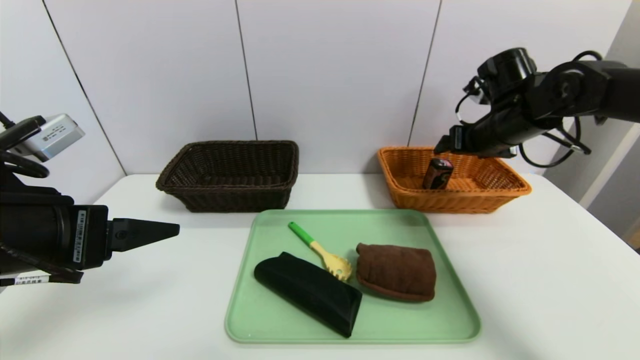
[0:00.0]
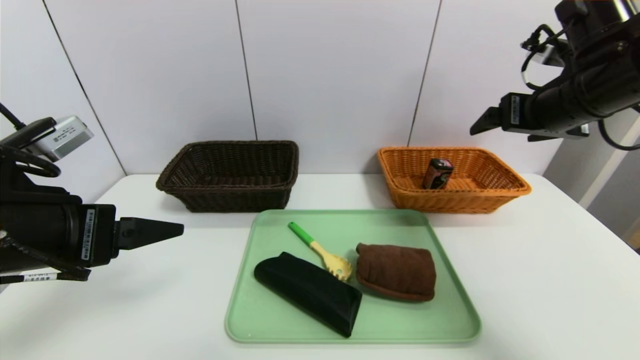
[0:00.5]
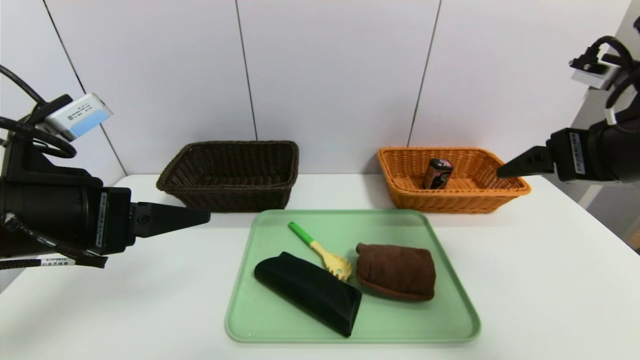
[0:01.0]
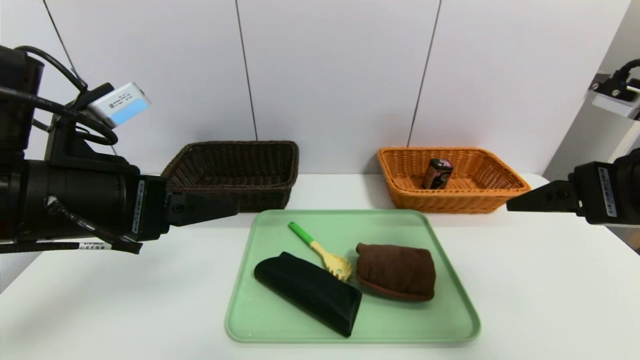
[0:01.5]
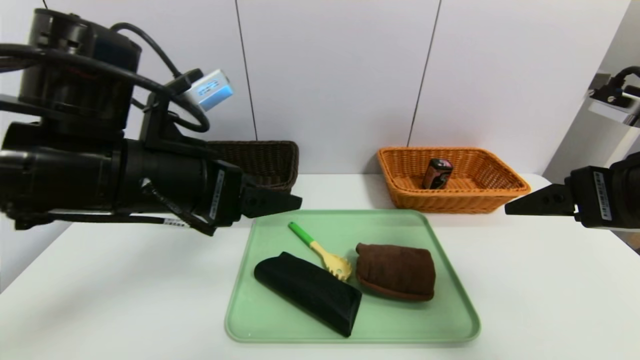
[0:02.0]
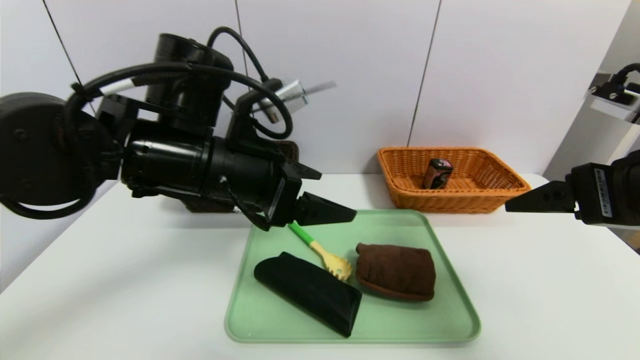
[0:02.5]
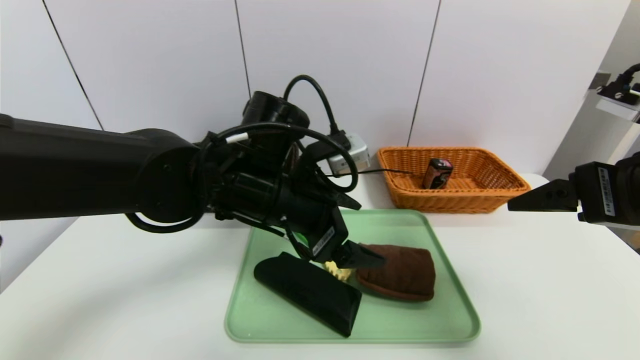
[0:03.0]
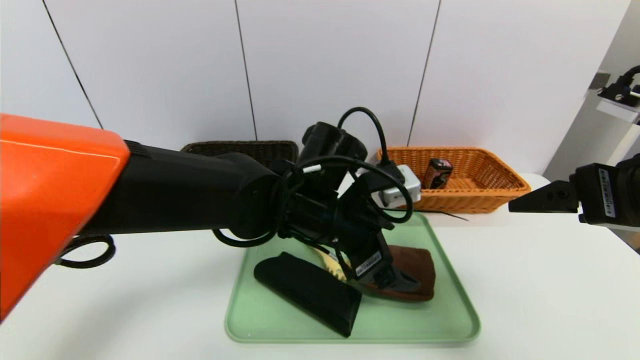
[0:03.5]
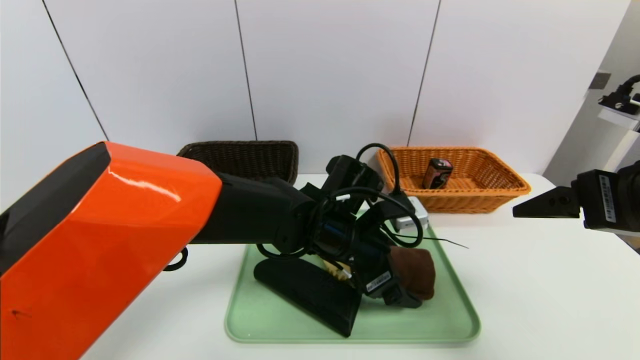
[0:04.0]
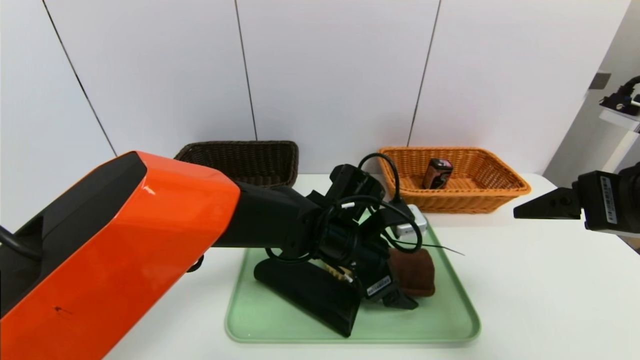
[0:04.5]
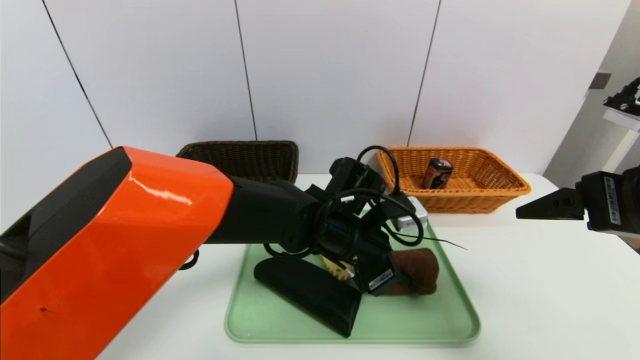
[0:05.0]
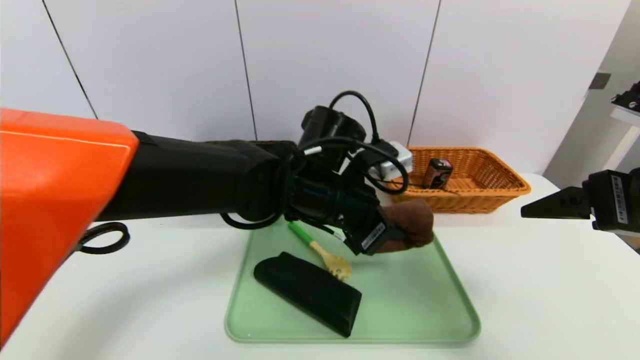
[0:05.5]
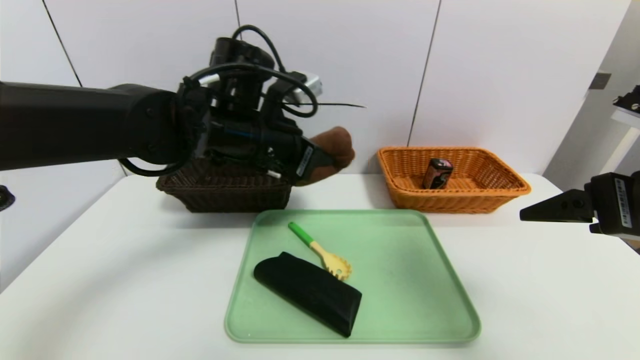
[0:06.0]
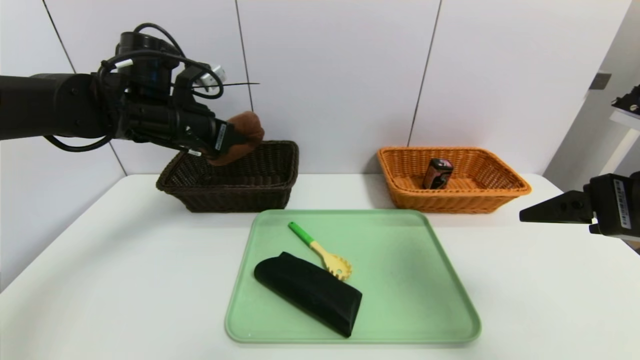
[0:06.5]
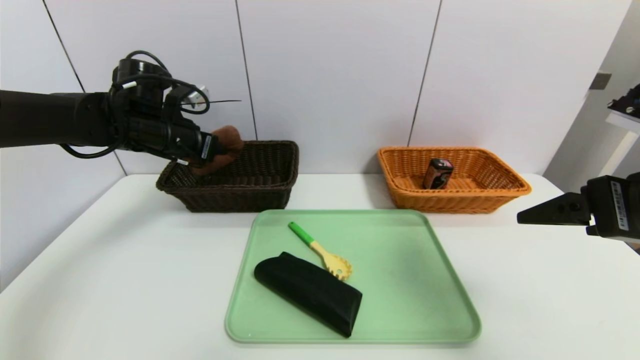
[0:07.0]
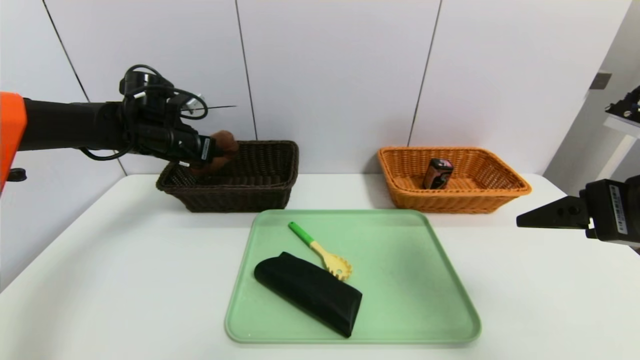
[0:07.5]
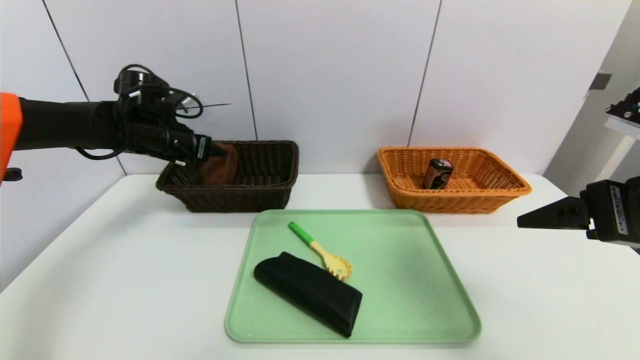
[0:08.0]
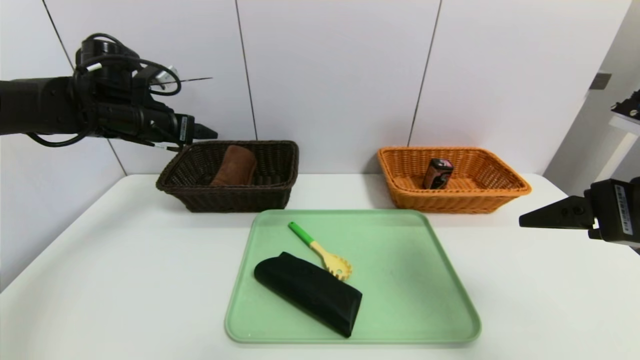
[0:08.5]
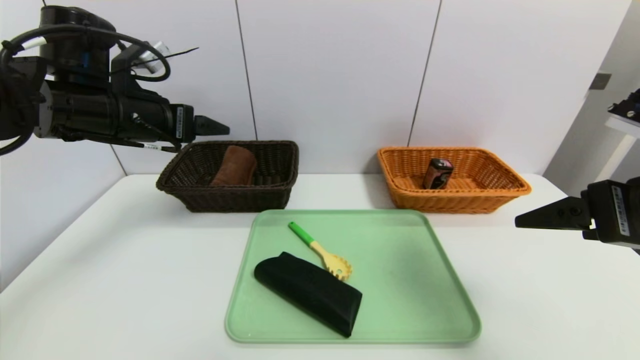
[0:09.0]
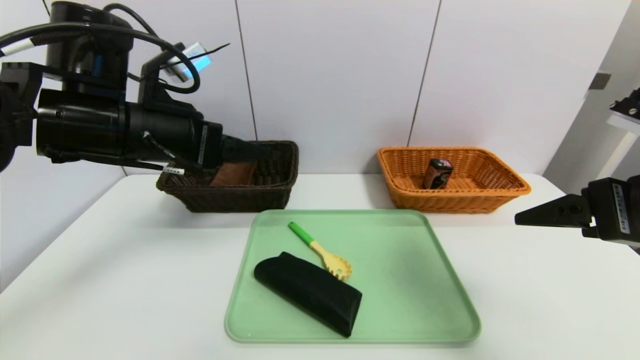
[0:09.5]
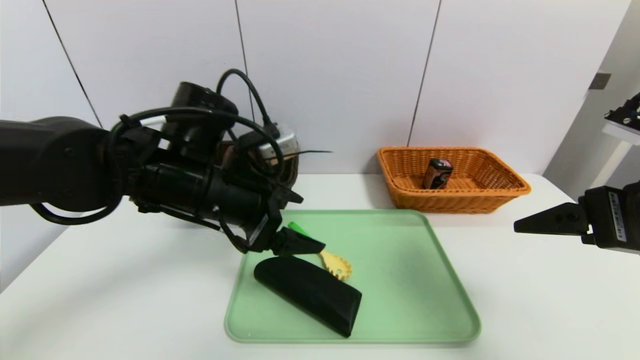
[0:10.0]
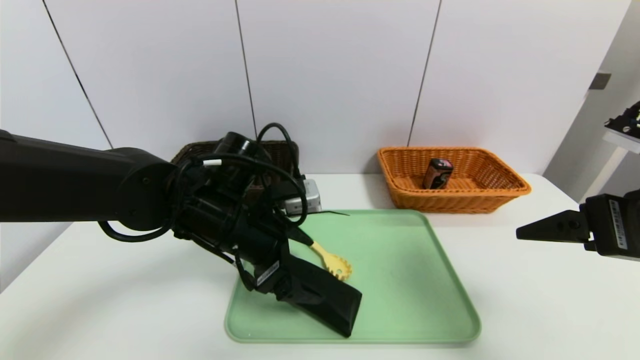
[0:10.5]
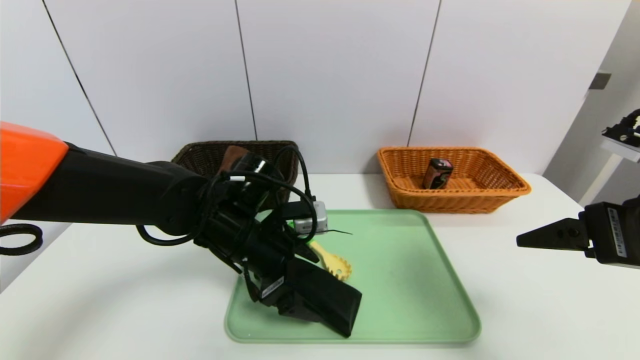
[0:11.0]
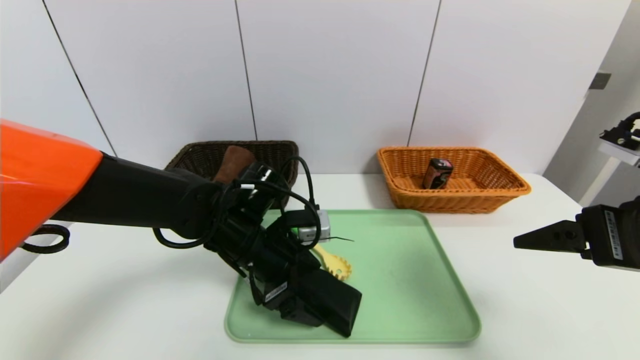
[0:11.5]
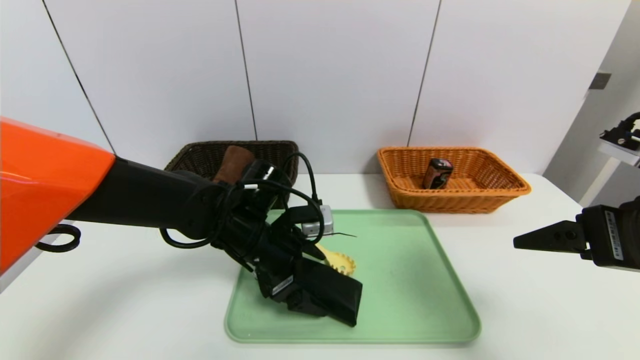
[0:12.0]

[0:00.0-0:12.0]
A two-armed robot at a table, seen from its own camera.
Task of the whole recording: place the food in the right basket with the right gripper, and place the non food items in the left basket with the left gripper.
Step, 0:00.0 to 0:08.0: Grasp the brown towel and put it in the left basket.
0:00.0 to 0:02.0: The right gripper is displaced backward by roughly 25 cm; the left gripper heads to the right and forward, covering some 10 cm.
0:02.0 to 0:04.0: The left gripper heads to the right, downward and forward, covering approximately 25 cm.
0:04.0 to 0:06.0: The left gripper heads upward and to the left, covering some 20 cm, and closes.
0:06.0 to 0:08.0: The left gripper moves to the left and forward, roughly 20 cm, and opens its fingers.
0:08.0 to 0:10.0: The left gripper shifts approximately 20 cm backward and to the right.
0:10.0 to 0:12.0: The left gripper moves downward, roughly 10 cm.

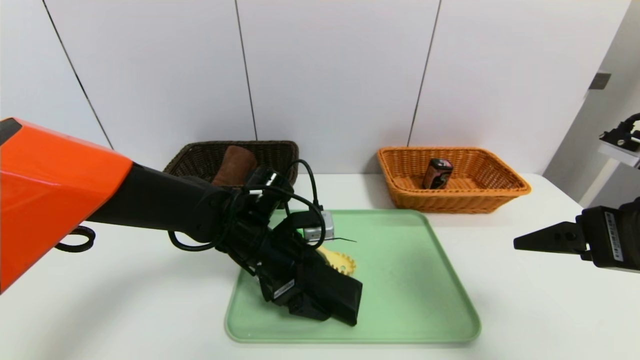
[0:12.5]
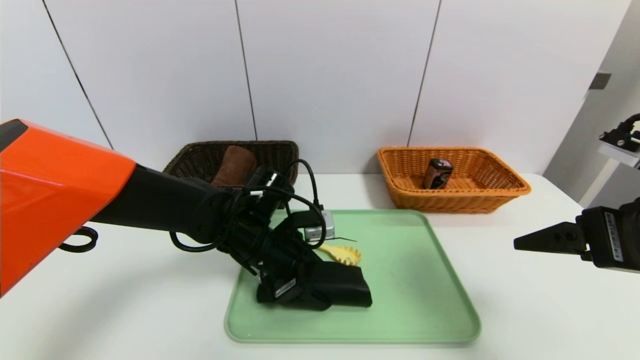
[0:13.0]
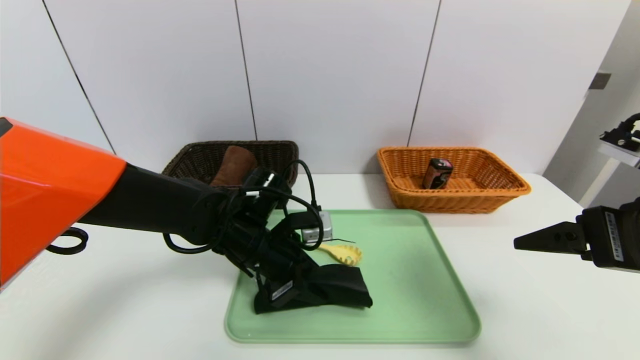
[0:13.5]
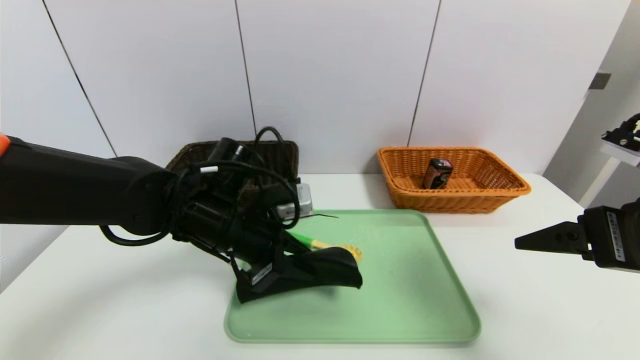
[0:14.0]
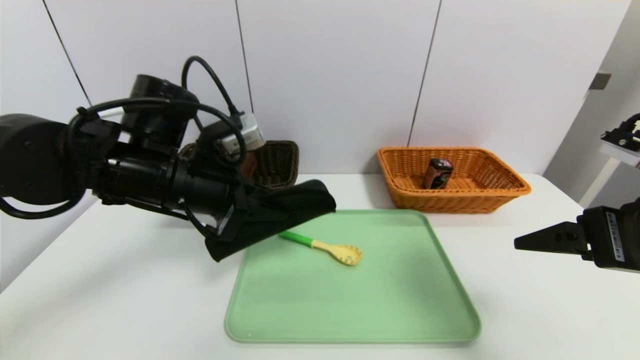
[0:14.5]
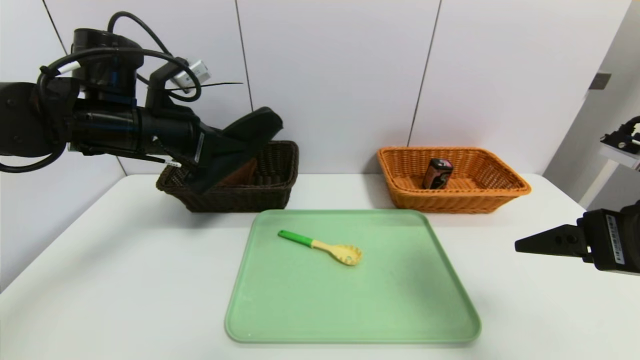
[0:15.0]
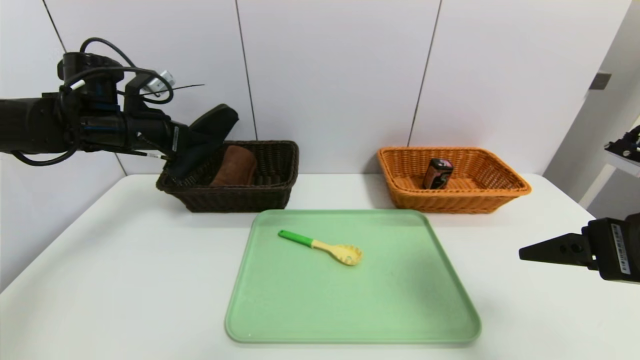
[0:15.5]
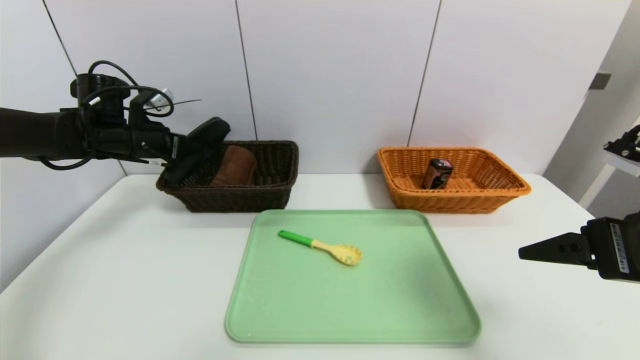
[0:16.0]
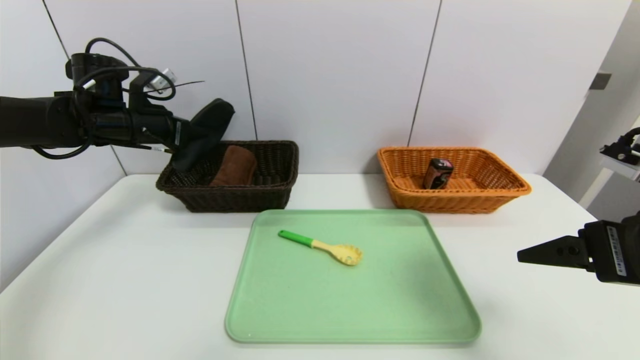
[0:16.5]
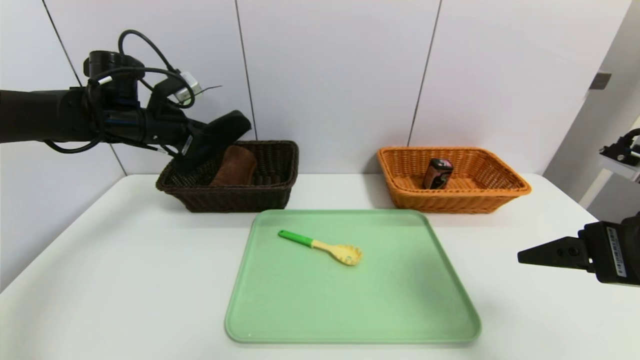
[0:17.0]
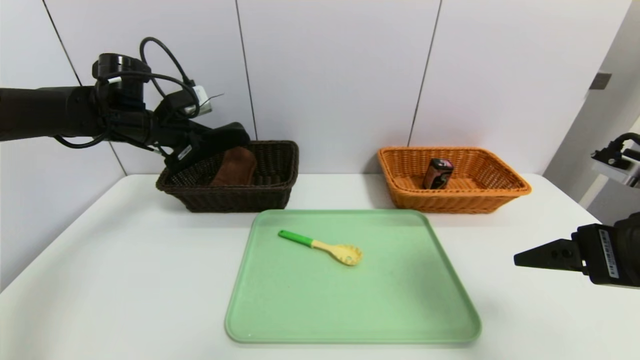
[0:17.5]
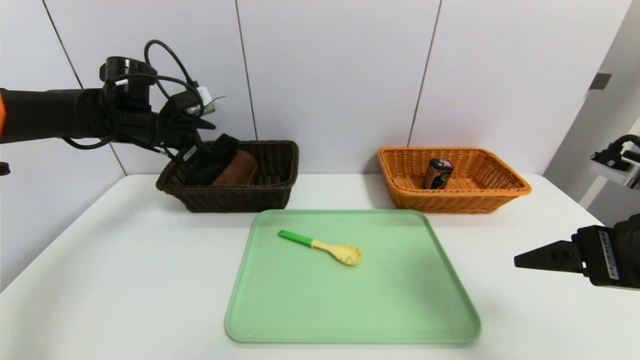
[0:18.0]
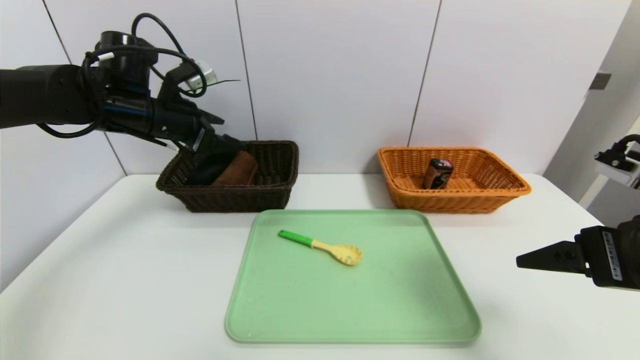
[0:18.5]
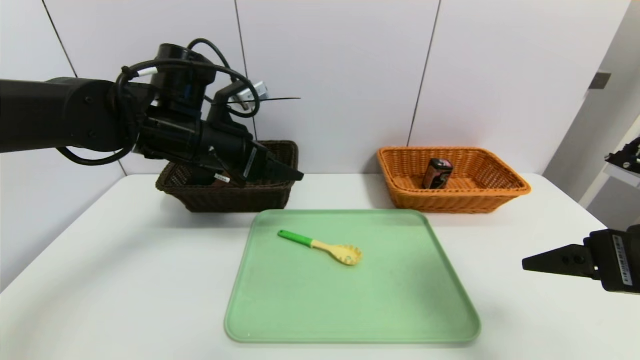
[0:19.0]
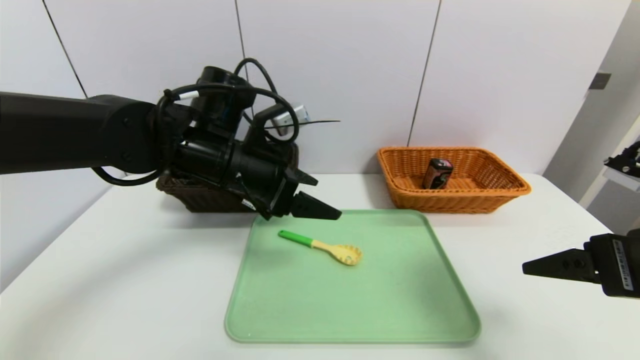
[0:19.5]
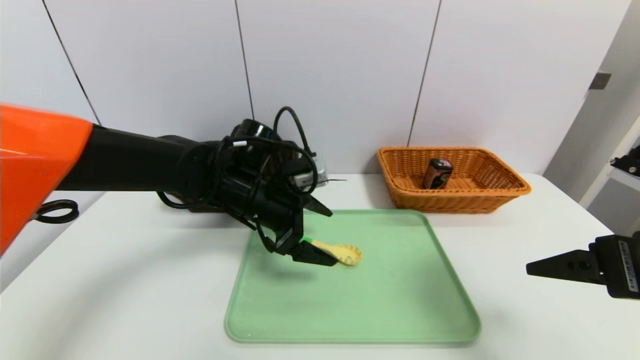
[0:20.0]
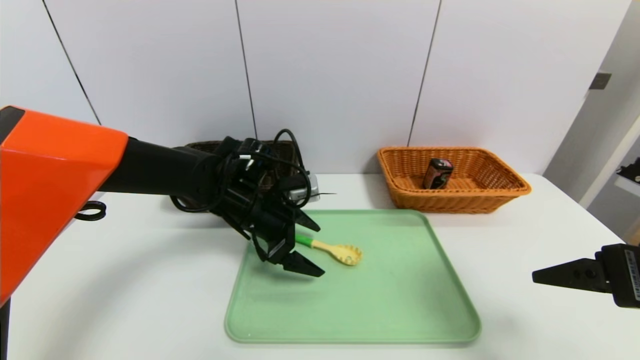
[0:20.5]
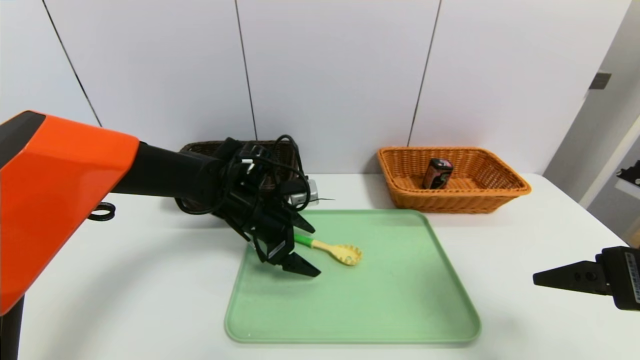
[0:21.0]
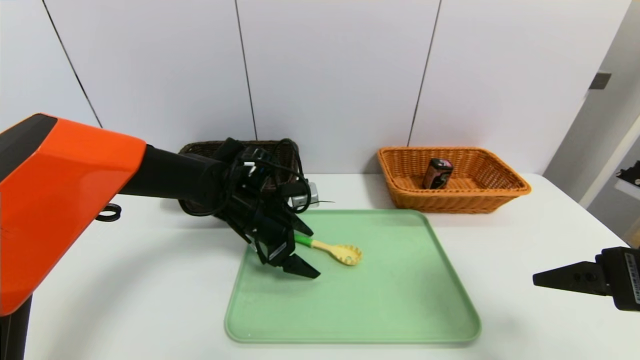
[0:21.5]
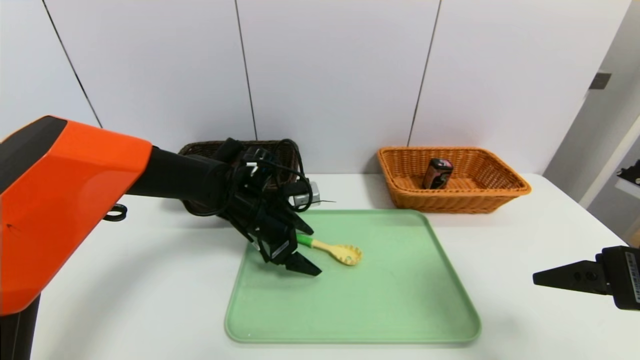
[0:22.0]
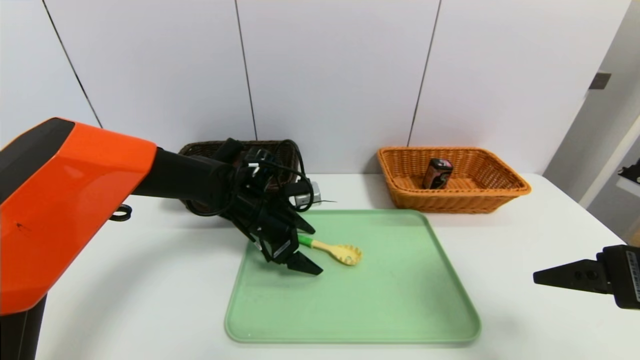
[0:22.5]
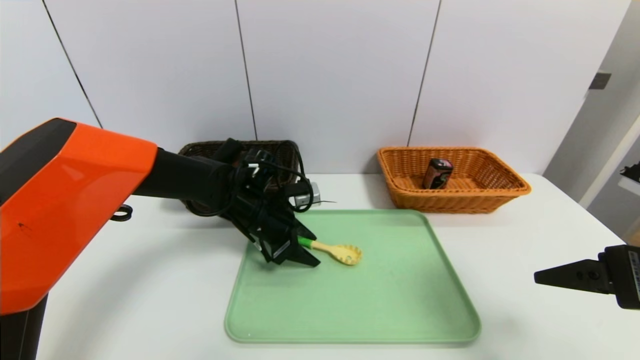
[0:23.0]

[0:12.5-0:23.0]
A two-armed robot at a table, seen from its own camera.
Task of the whole recording: place the food in the right basket with the right gripper, and place the non food items in the left basket with the left gripper.
Step, 0:12.5 to 0:18.0: Grasp the glasses case and put it in the left basket.
0:12.5 to 0:14.5: The left gripper heads upward and to the left, covering some 15 cm, and closes.
0:14.5 to 0:16.5: The left gripper goes about 20 cm to the left and forward.
0:16.5 to 0:19.0: The left gripper shifts about 15 cm to the right and backward, and opens up.
0:19.0 to 0:21.0: The left gripper is displaced downward by approximately 15 cm.
0:21.0 to 0:23.0: The left gripper closes up.
